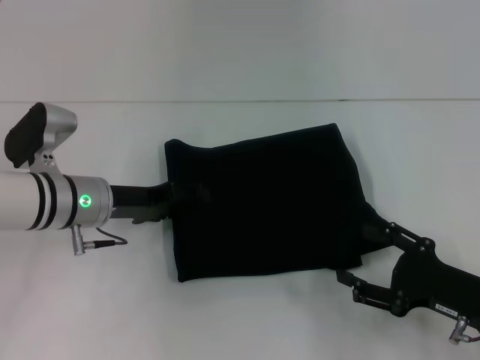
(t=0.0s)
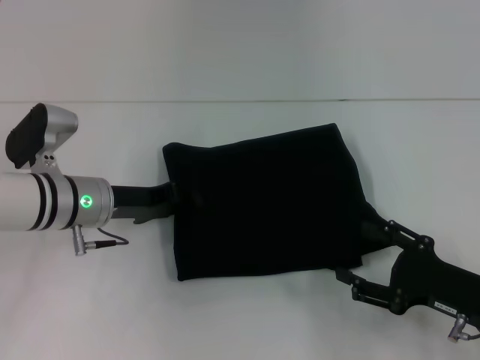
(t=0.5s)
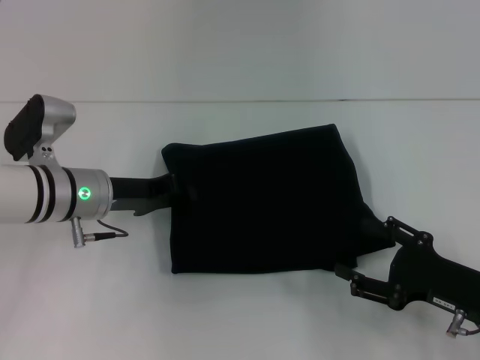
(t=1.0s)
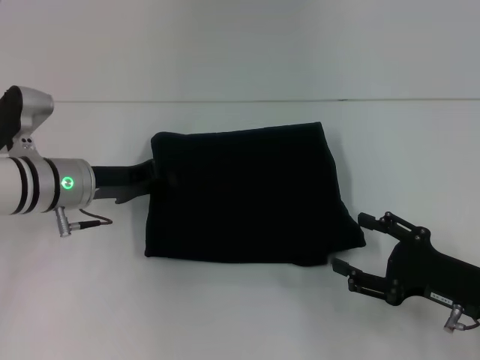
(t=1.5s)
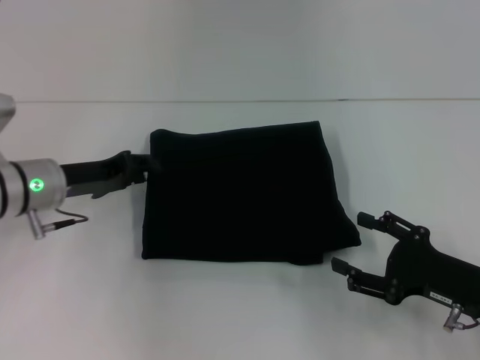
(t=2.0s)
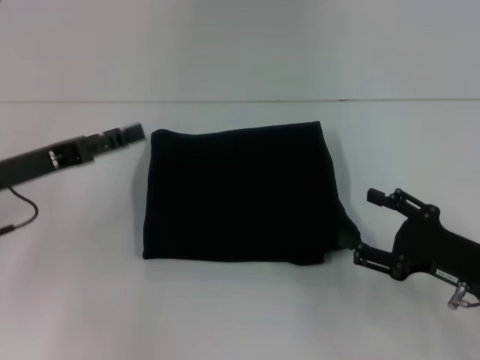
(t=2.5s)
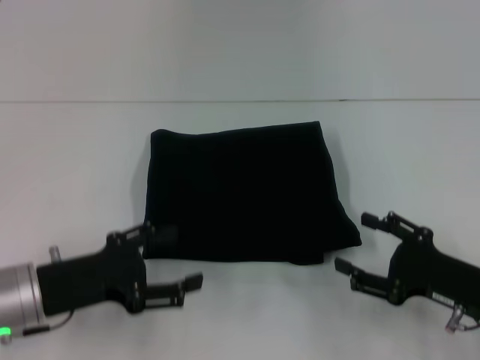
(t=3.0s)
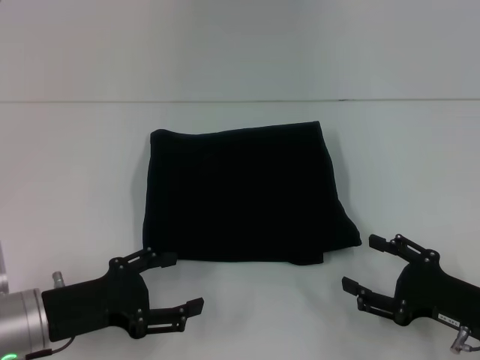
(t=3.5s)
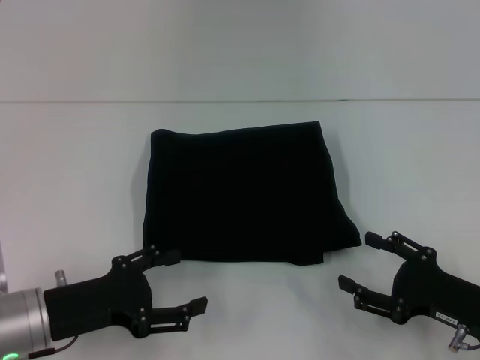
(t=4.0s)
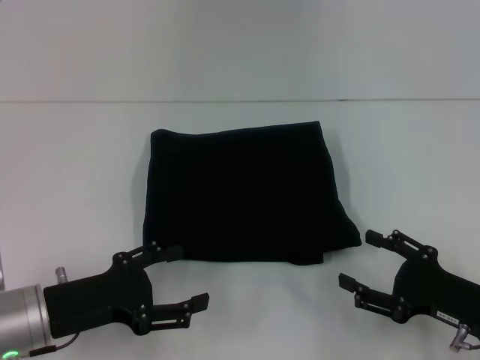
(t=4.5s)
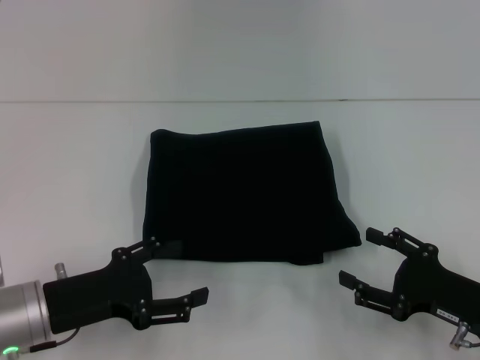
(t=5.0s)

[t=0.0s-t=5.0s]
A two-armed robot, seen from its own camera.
t=0.0s to t=2.5s: The left gripper goes about 10 cm to the left and upward, and closes, then reopens.
t=2.5s to t=5.0s: The left gripper is displaced backward, downward and to the right by approximately 10 cm.

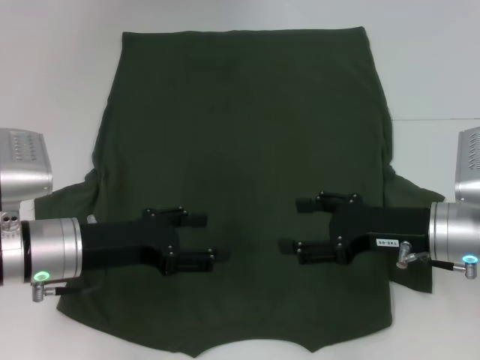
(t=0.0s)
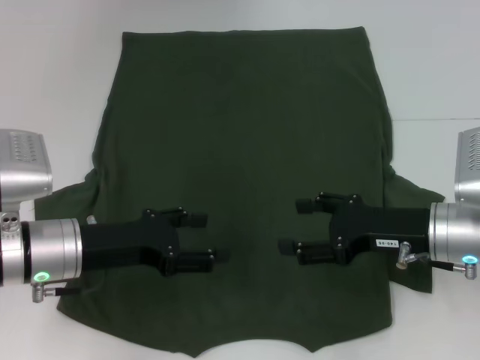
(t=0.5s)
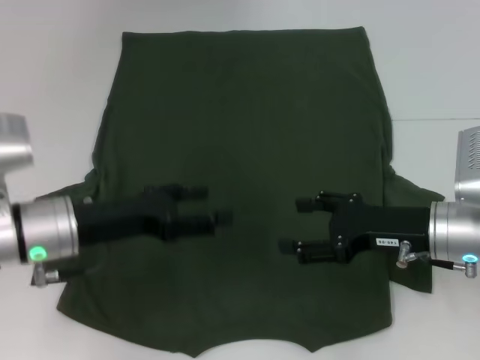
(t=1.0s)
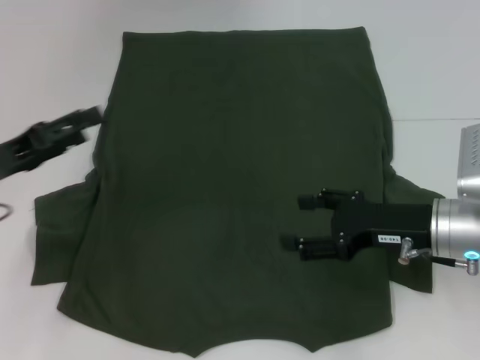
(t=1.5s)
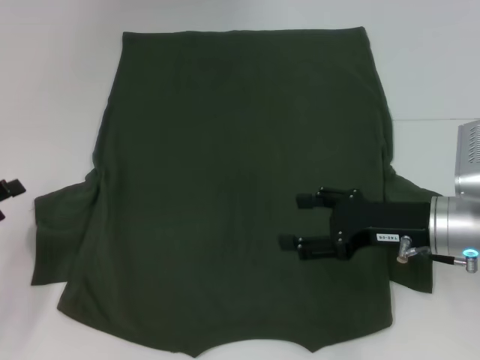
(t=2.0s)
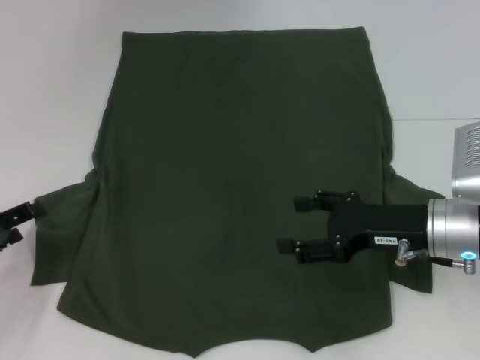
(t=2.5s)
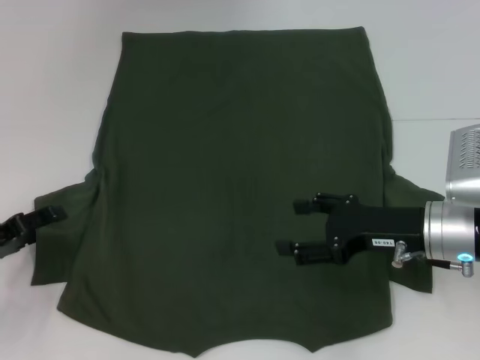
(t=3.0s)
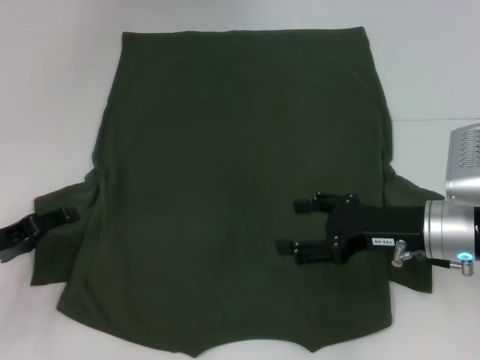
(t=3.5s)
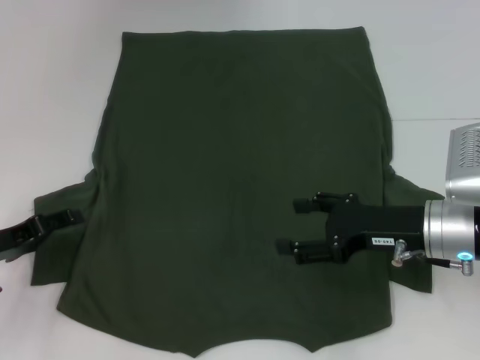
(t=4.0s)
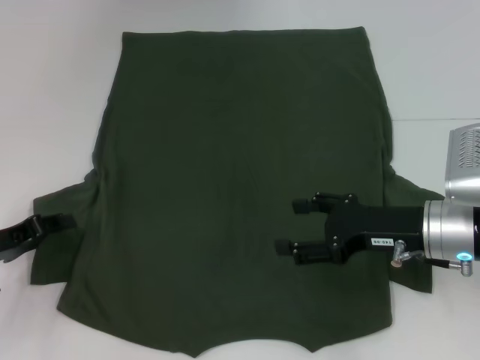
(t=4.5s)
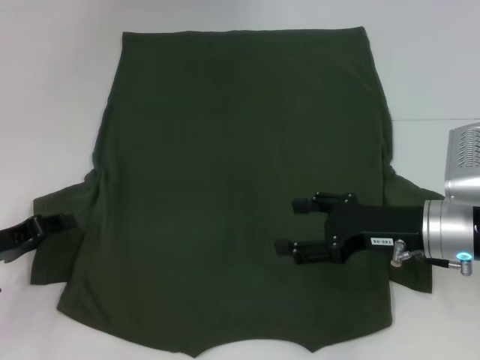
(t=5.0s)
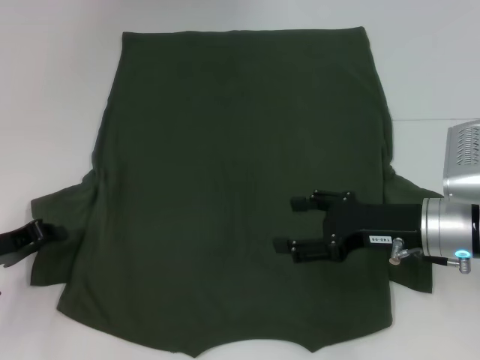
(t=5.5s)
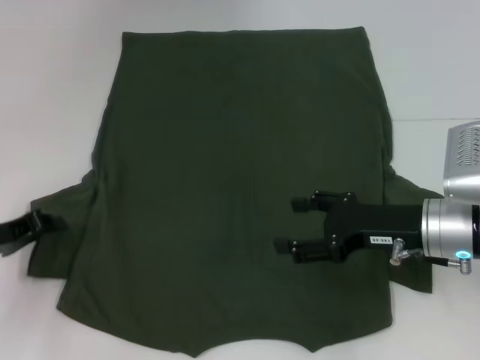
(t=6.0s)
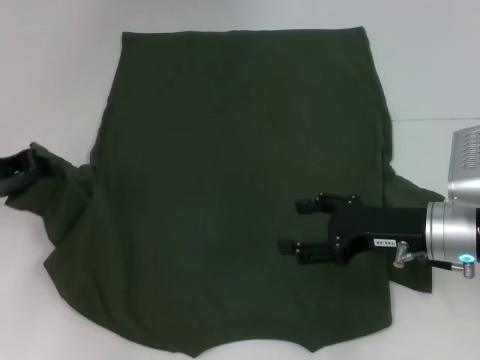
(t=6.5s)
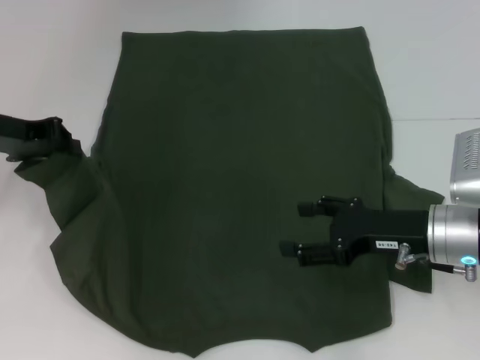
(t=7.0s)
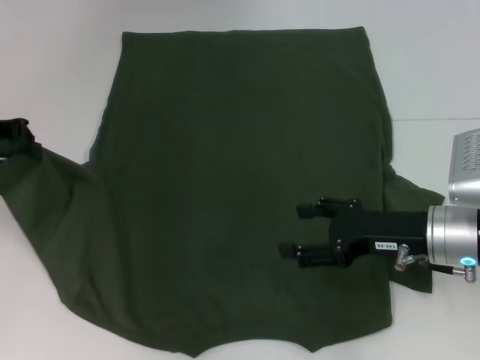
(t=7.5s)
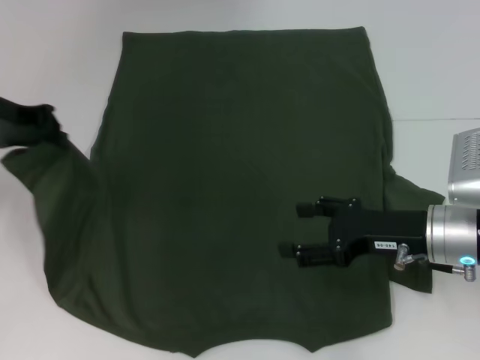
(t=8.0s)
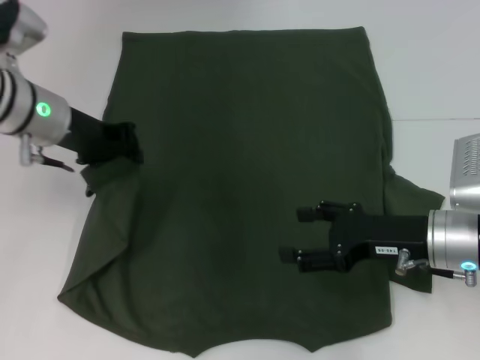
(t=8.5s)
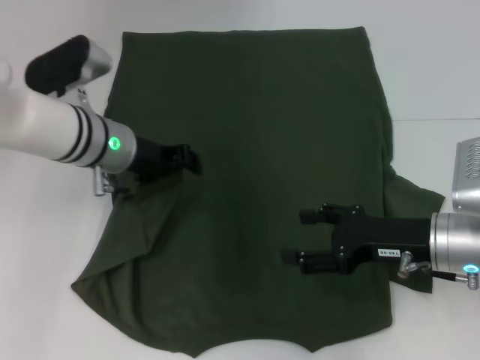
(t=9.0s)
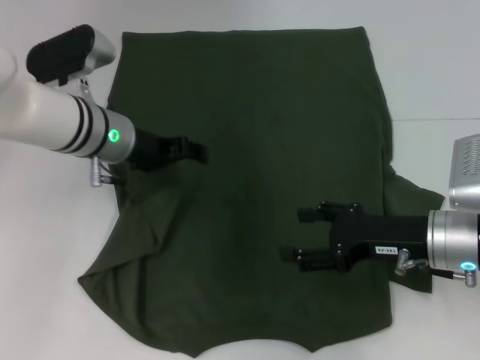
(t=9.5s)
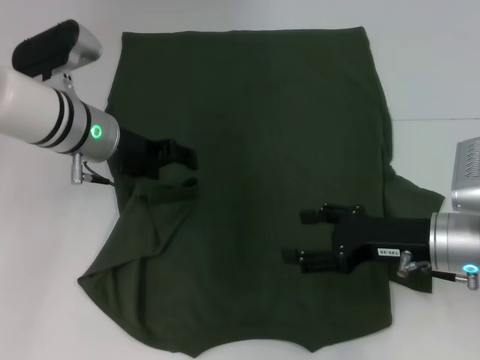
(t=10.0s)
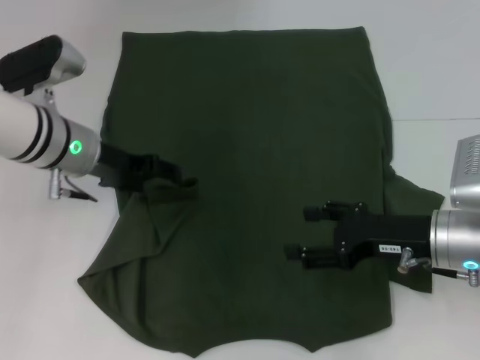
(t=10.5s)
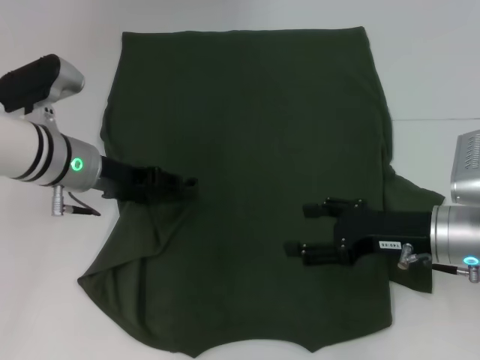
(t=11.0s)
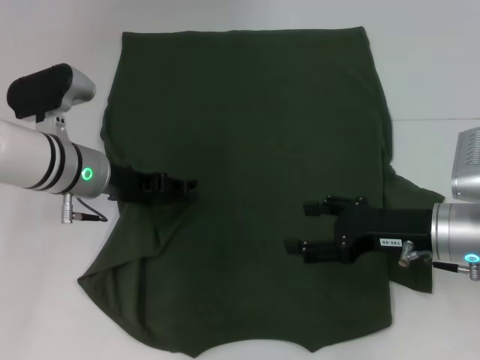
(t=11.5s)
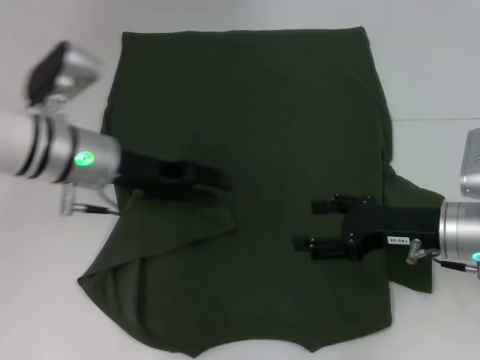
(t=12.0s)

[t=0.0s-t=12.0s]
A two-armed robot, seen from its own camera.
t=0.0s to t=2.0s: The left gripper is displaced to the left by about 15 cm.
t=2.0s to t=4.0s: The left gripper shifts by about 5 cm.
t=4.0s to t=6.0s: The left gripper closes up.
t=6.0s to t=8.0s: The left gripper goes approximately 20 cm upward and forward.
t=8.0s to t=10.0s: The left gripper goes roughly 15 cm to the right and downward, and opens up.

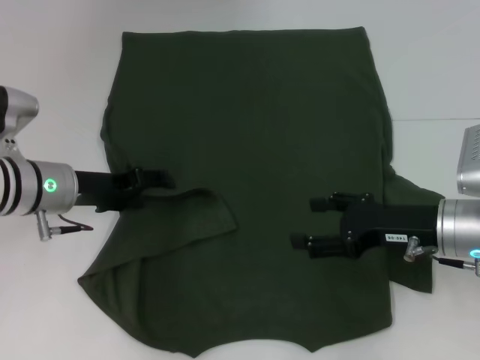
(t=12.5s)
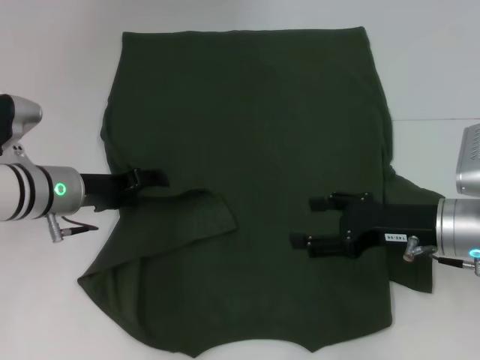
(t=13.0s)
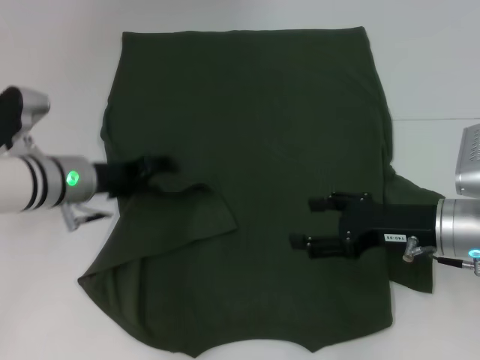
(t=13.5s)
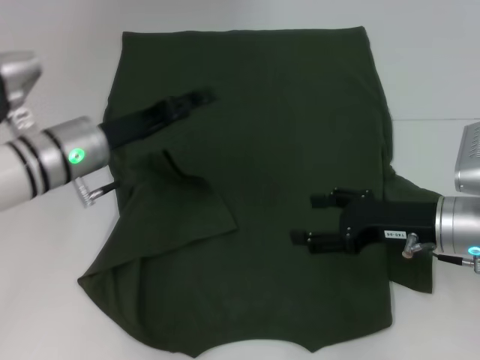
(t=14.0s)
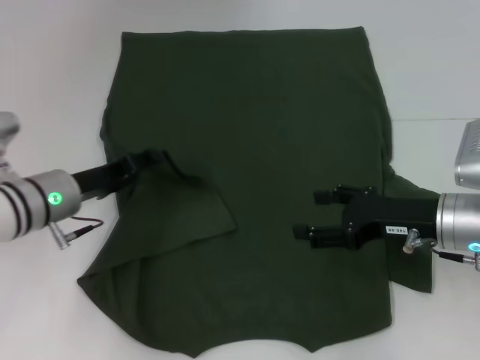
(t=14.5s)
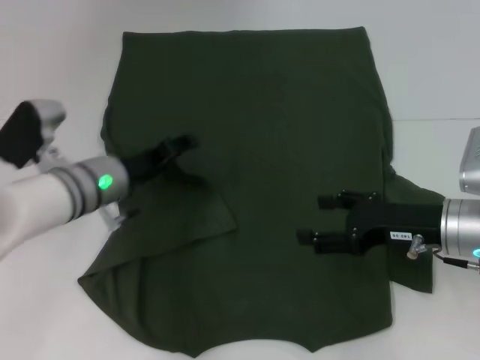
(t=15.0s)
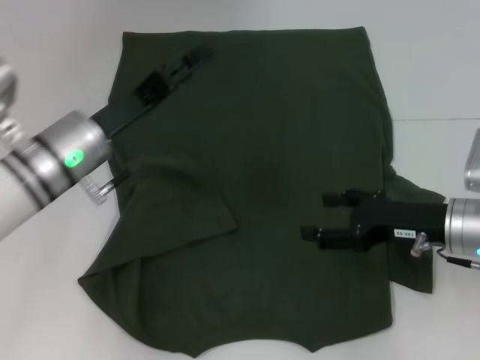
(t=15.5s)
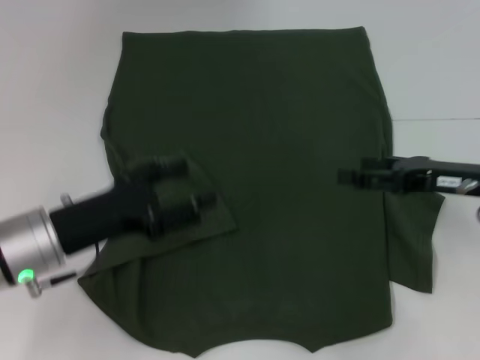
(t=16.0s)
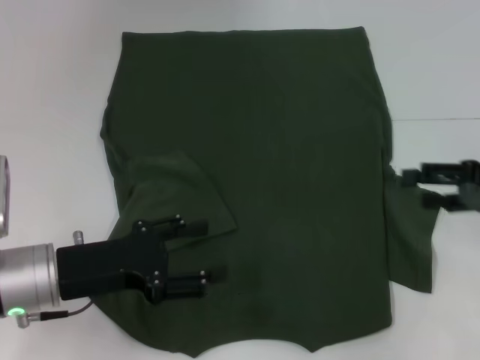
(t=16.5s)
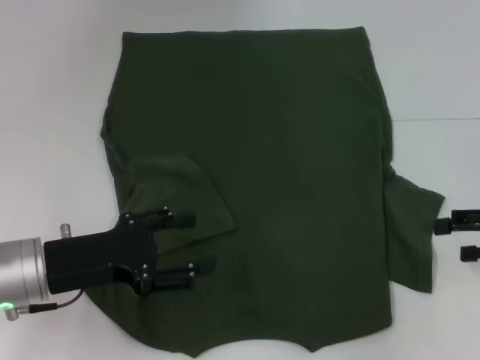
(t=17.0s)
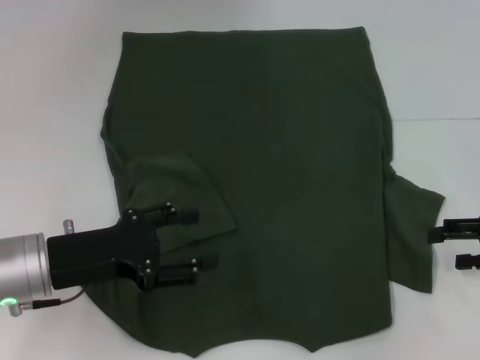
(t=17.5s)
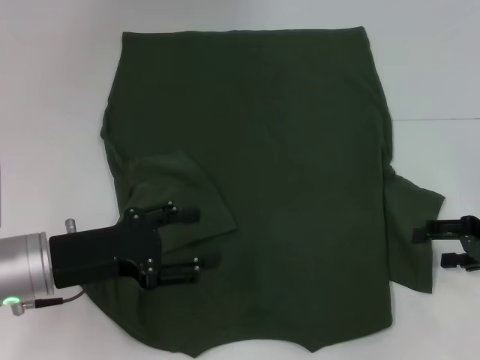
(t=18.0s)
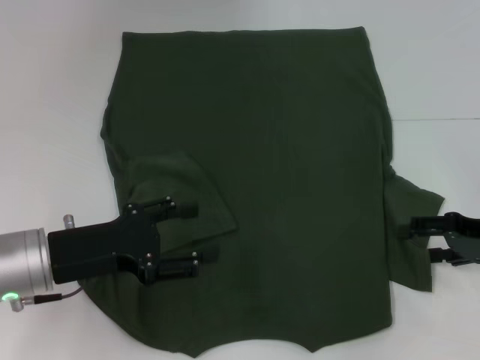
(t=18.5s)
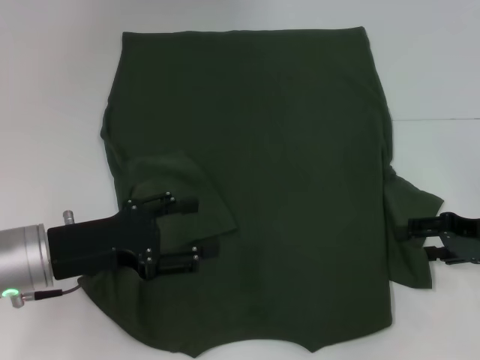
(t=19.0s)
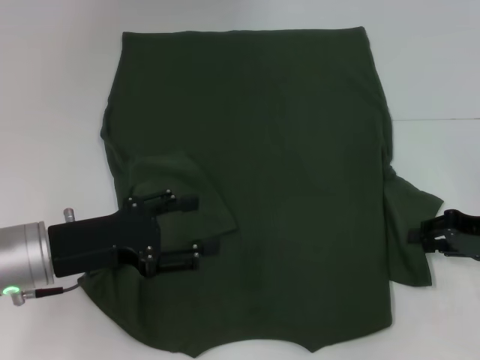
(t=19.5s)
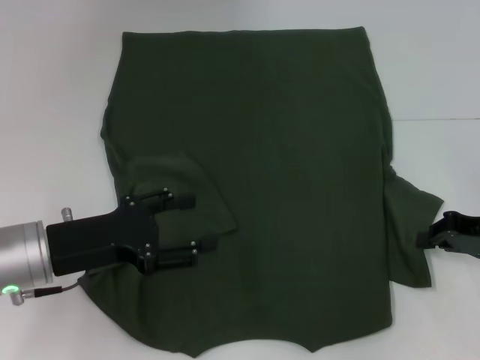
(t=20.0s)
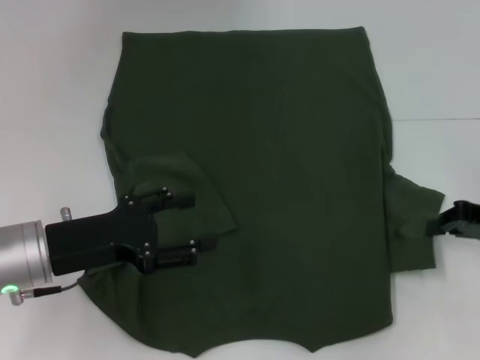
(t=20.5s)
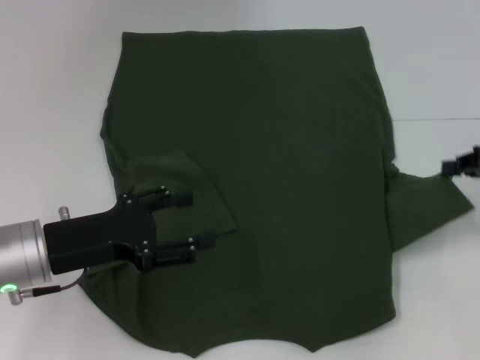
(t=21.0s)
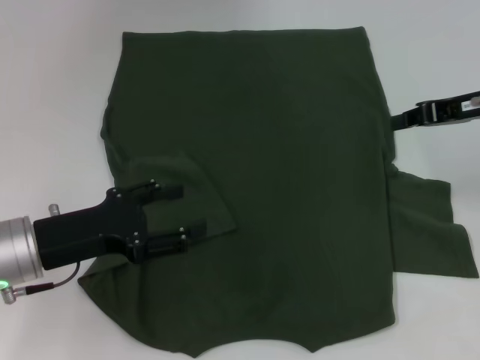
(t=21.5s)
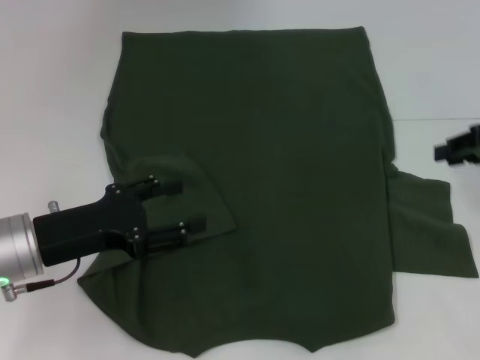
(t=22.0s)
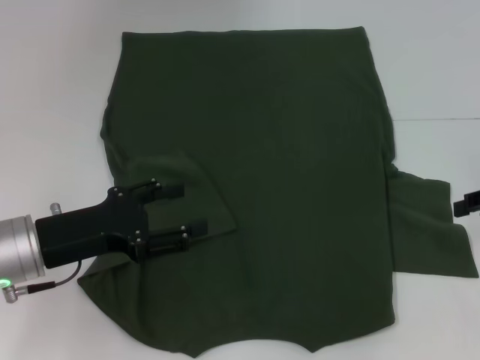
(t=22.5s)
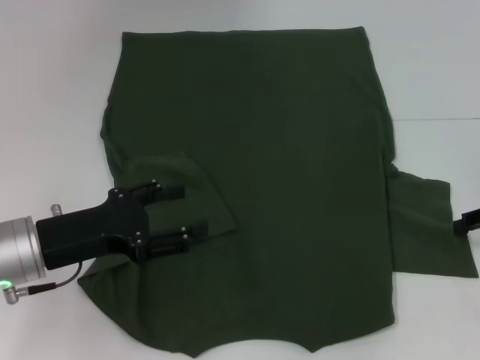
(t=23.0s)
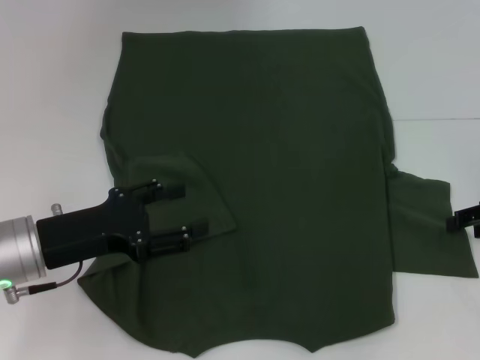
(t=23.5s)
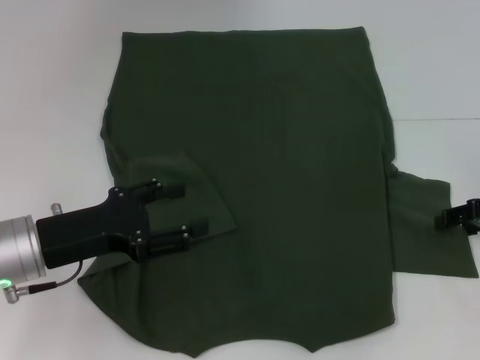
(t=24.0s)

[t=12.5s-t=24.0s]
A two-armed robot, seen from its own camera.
Step, t=12.5s to t=15.0s: Fold the bottom left sleeve with your left hand.
t=14.5s to t=16.5s: The left gripper moves backward, roughly 10 cm; the right gripper heads to the right and upward, covering some 10 cm.
t=16.5s to t=18.5s: The right gripper heads downward, covering approximately 5 cm.
t=18.5s to t=20.0s: The right gripper closes its fingers.
t=20.0s to t=22.0s: The right gripper travels upward by roughly 10 cm.
t=22.0s to t=24.0s: The right gripper is displaced downward by roughly 5 cm, and opens its fingers.
